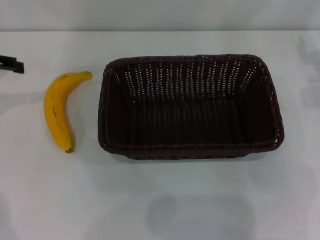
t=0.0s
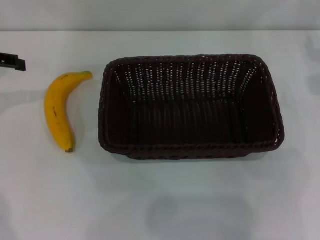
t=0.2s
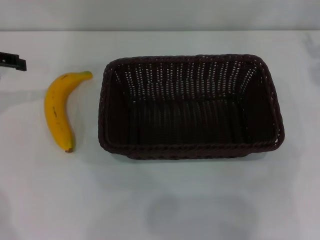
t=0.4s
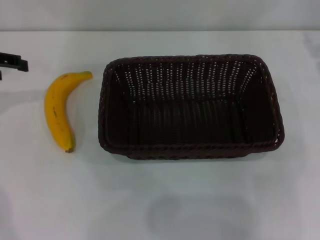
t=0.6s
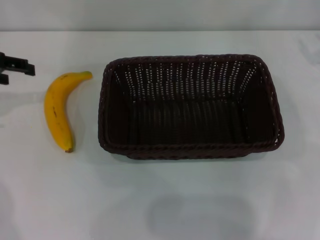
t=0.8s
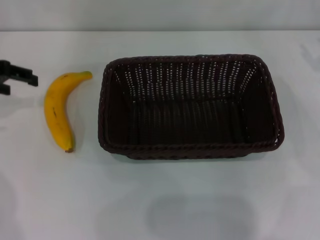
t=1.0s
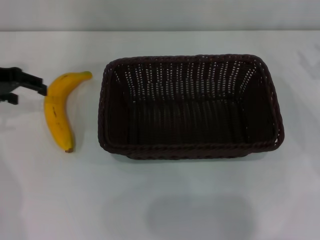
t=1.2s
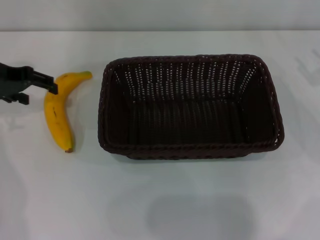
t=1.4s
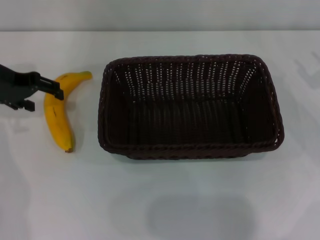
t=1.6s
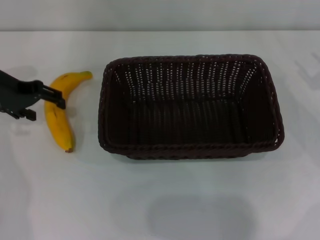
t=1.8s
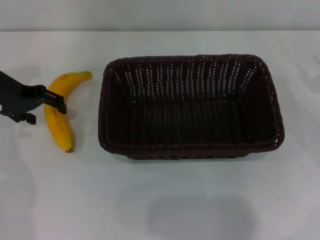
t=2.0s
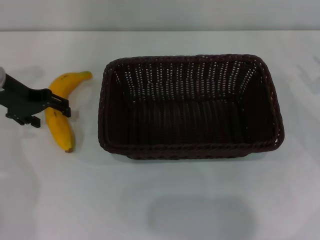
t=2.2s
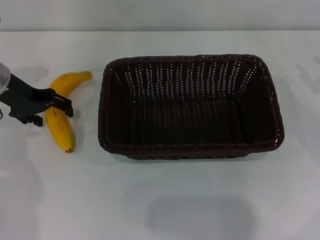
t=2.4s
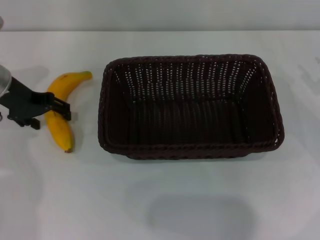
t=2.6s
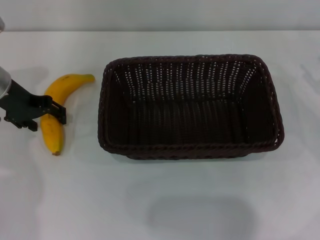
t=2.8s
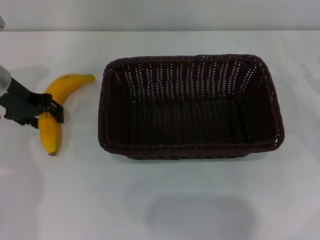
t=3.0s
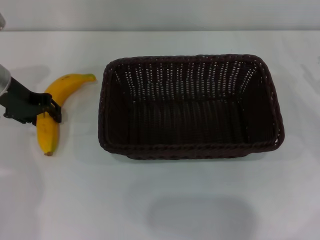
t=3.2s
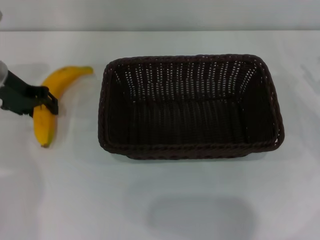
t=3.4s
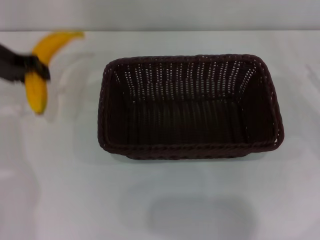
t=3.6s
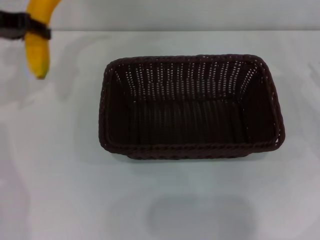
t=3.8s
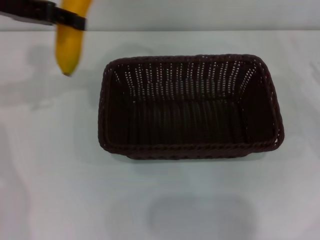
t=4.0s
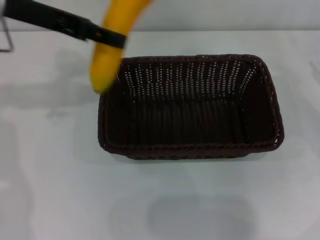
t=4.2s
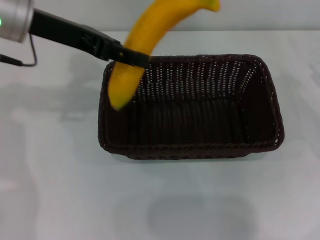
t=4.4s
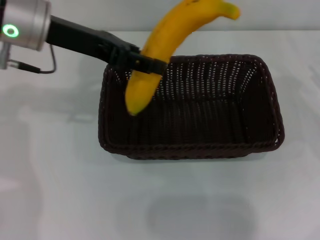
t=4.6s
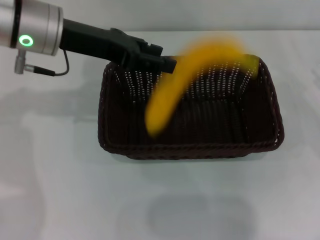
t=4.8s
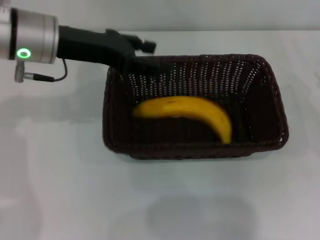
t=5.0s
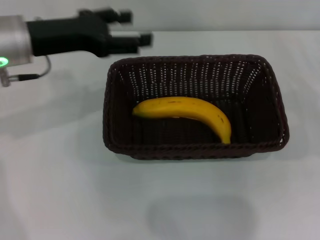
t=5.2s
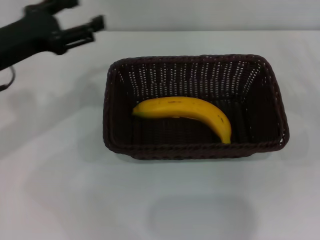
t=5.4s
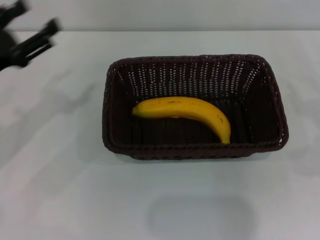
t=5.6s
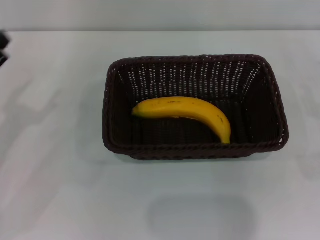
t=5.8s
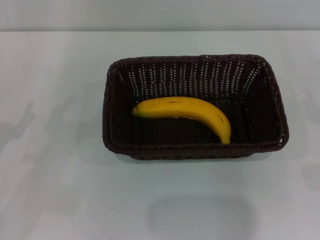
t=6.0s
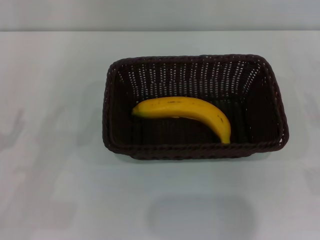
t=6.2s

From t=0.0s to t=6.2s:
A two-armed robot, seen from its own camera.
Step, from t=0.0s to t=3.6s: Pick up the banana with the left gripper.
Step, from t=4.0s to t=5.2s: Place the banana into the dark basket with the left gripper.
From t=0.0s to t=1.6s: The left gripper goes approximately 5 cm to the right.
From t=1.6s to t=3.2s: The left gripper closes its fingers.
From t=3.2s to t=4.6s: The left gripper shifts about 10 cm upward and to the right.
From t=4.6s to t=6.2s: The right gripper heads backward, covering approximately 10 cm. The left gripper is displaced backward, downward and to the left by about 30 cm, and opens up.

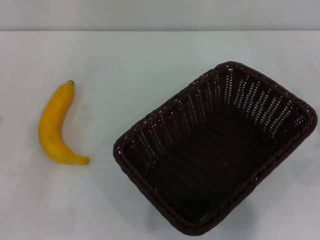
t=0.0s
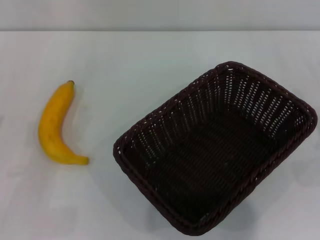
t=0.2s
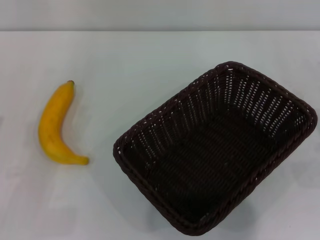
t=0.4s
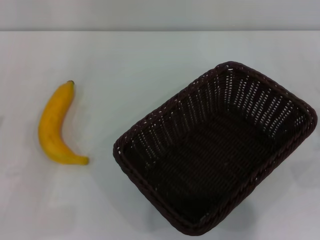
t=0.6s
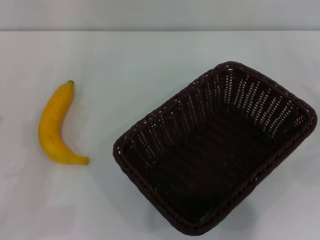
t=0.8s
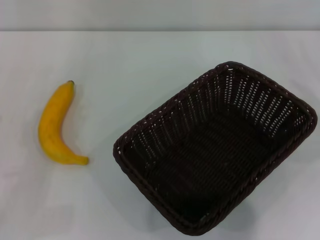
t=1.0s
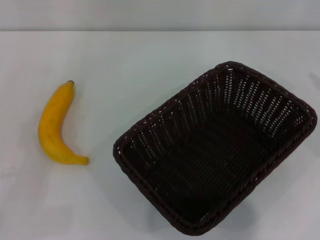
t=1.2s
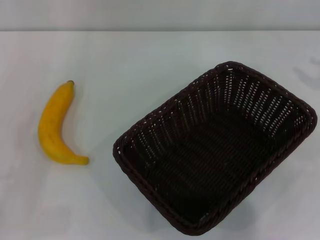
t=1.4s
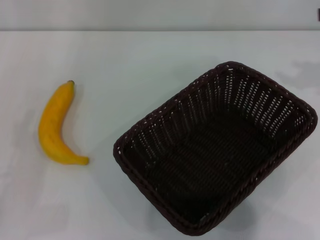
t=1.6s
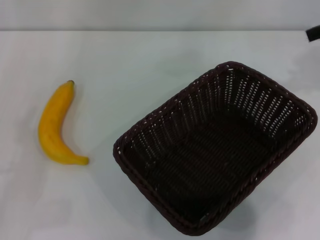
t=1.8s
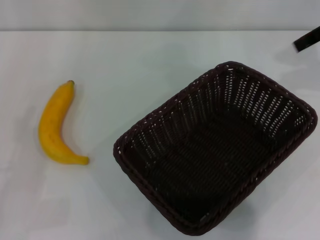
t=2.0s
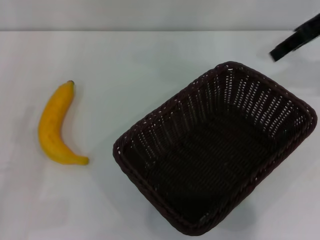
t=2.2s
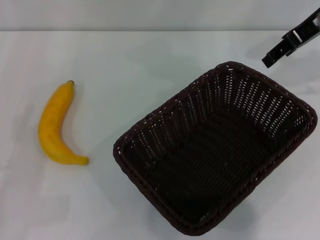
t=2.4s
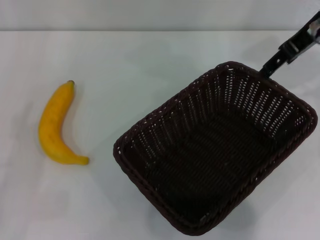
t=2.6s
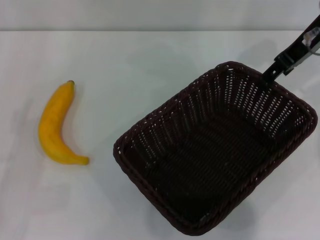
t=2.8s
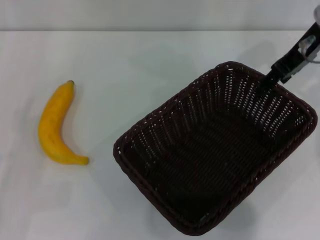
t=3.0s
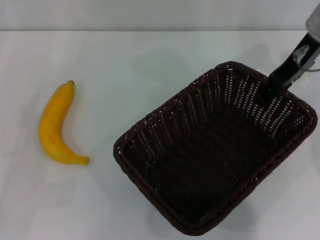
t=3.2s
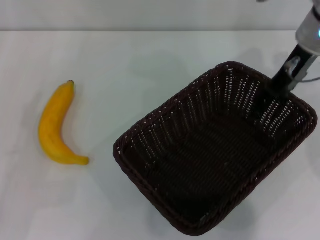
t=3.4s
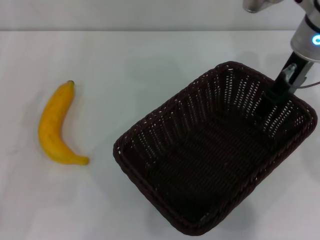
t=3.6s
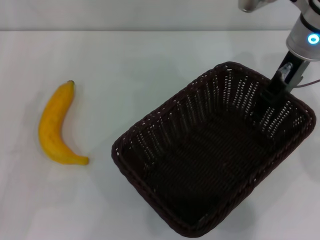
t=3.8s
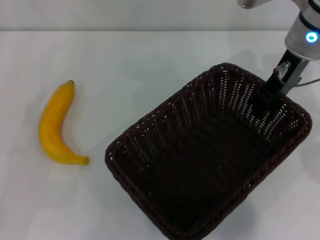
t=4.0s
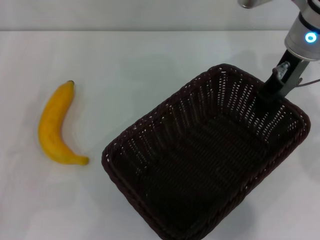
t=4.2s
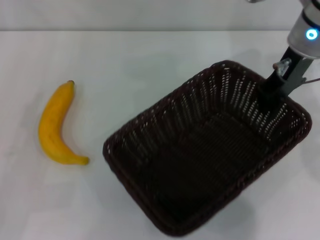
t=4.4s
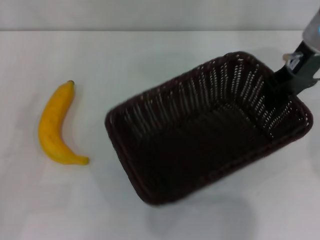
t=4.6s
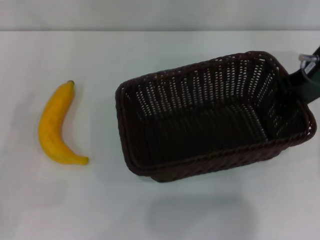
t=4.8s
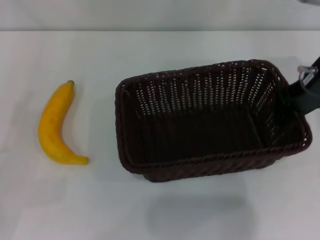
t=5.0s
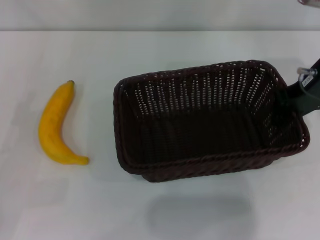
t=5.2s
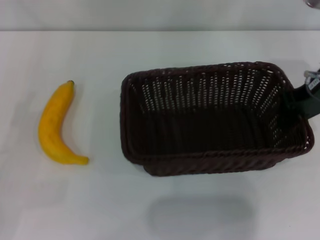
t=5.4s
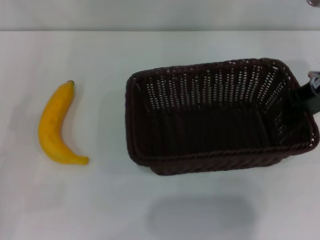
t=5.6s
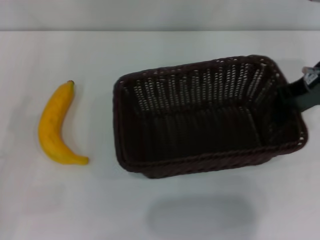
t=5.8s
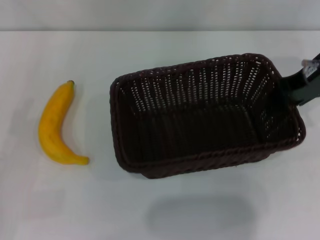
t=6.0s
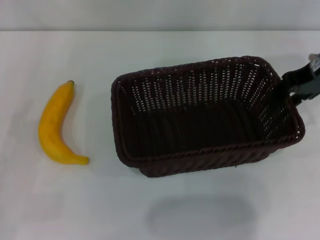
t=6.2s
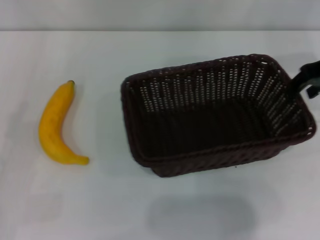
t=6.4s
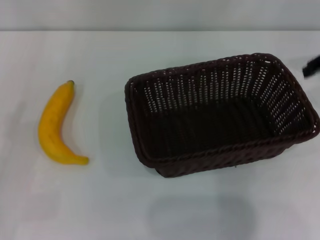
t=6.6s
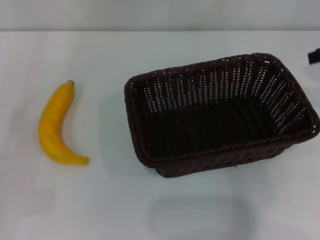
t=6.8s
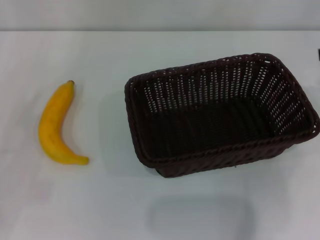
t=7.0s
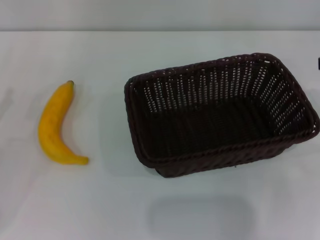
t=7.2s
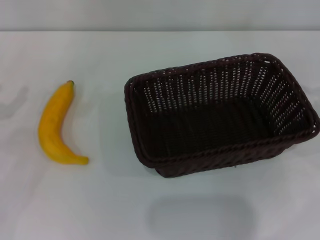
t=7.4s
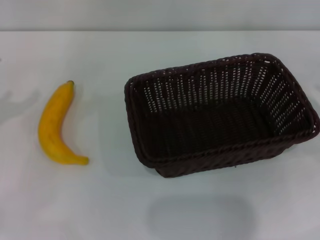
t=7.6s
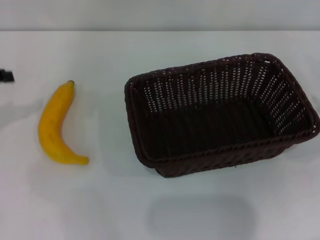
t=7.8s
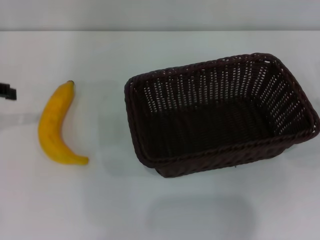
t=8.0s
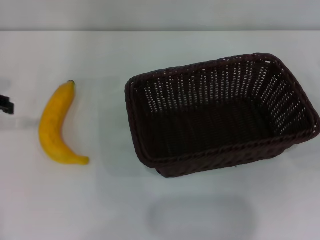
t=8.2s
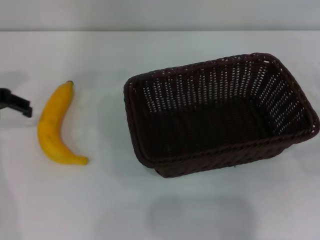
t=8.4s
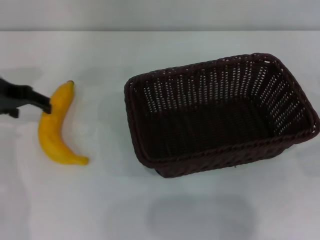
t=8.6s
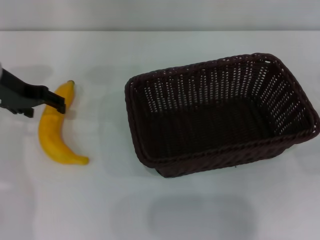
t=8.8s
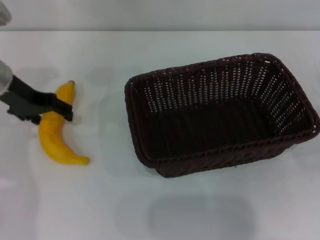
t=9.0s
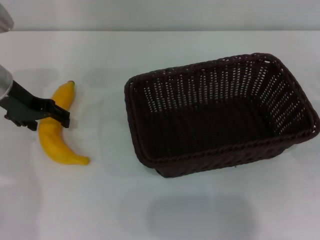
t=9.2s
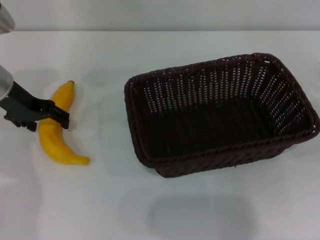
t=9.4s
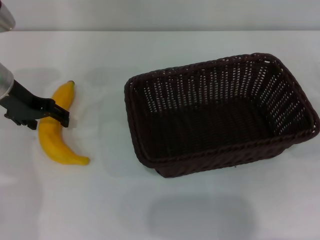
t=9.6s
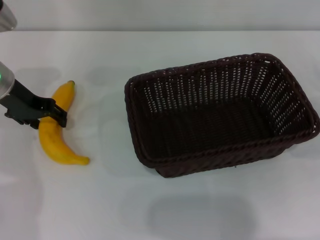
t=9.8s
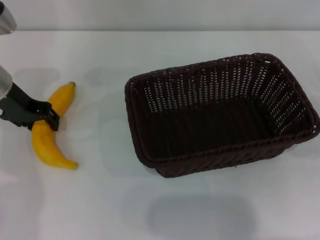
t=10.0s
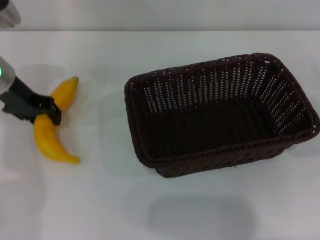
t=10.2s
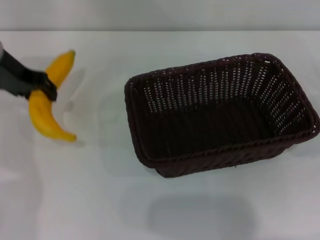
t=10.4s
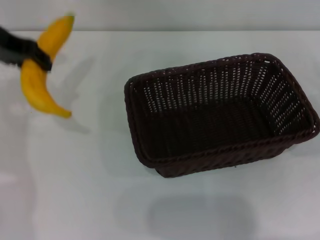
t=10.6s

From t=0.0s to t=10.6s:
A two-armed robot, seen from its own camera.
Step, from t=0.0s to t=4.4s: Pick up the dark basket with the right gripper.
Step, from t=4.6s to t=6.4s: Place the dark basket in the center of view with the right gripper.
Step, from t=6.6s to t=10.2s: Pick up the banana with the left gripper.
From t=1.6s to t=3.0s: The right gripper shifts approximately 15 cm to the left and forward.
From t=3.0s to t=4.6s: The right gripper closes up.
From t=4.6s to t=6.0s: There are only small adjustments of the grippers.
From t=6.0s to t=7.6s: The left gripper moves upward and forward, roughly 10 cm; the right gripper moves to the right, backward and downward, roughly 20 cm, and opens up.
From t=7.6s to t=9.0s: The left gripper moves to the right and forward, approximately 15 cm.
From t=9.0s to t=10.6s: The left gripper is displaced upward by about 10 cm, and closes its fingers.

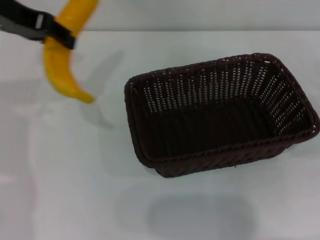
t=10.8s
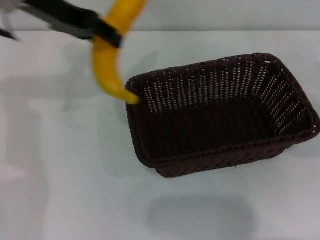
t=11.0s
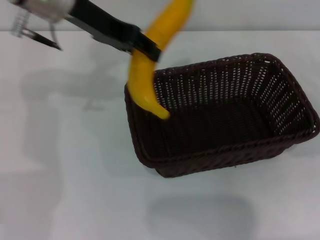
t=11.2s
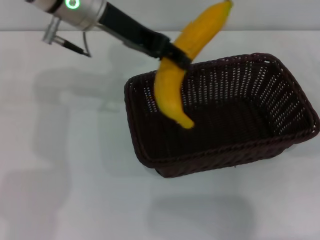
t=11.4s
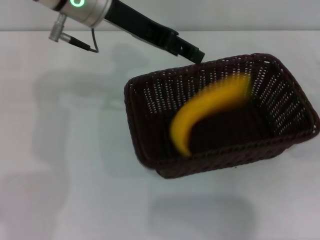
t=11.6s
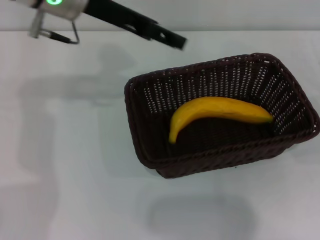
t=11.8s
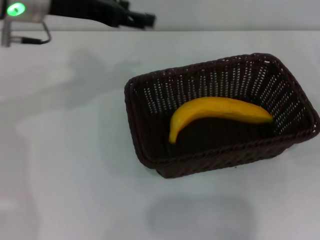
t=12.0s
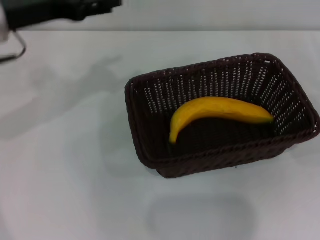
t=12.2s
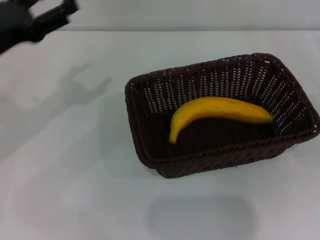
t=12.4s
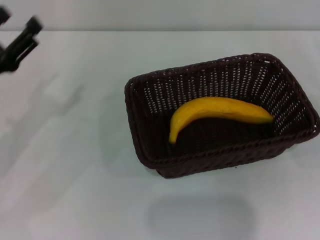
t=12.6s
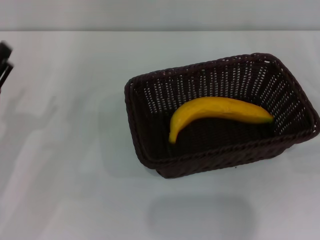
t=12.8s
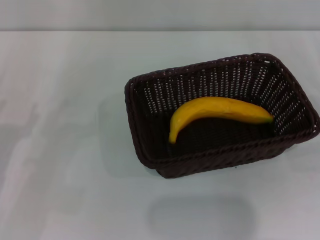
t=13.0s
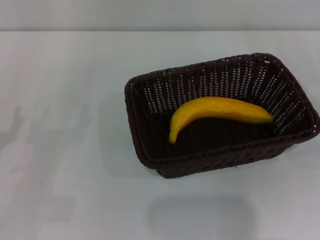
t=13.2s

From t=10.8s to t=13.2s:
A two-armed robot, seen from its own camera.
Step, from t=10.8s to t=11.6s: Place the banana into the dark basket with the left gripper.
From t=10.8s to t=12.0s: The left gripper shifts some 5 cm downward, reaches roughly 10 cm to the right, then returns, and opens.
From t=12.0s to t=13.2s: The left gripper heads downward, backward and to the left, covering about 30 cm.
